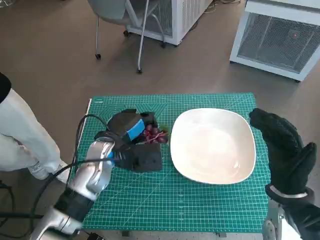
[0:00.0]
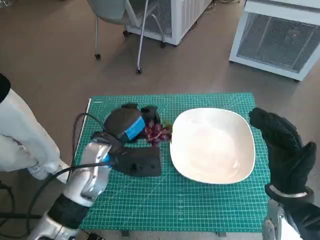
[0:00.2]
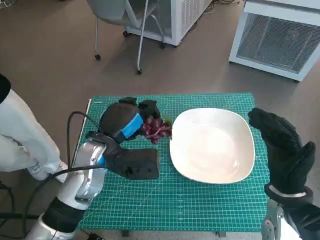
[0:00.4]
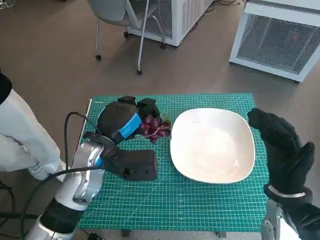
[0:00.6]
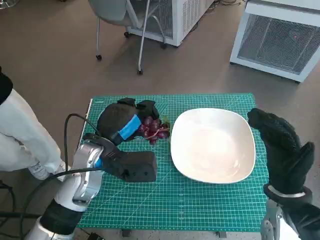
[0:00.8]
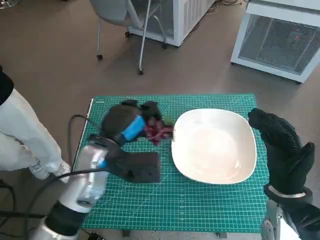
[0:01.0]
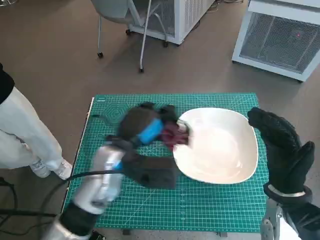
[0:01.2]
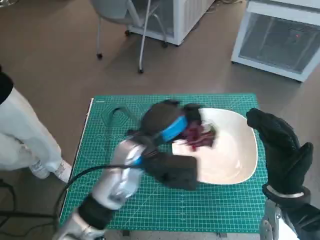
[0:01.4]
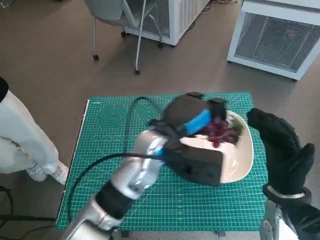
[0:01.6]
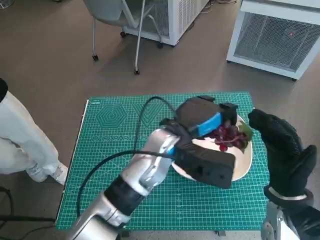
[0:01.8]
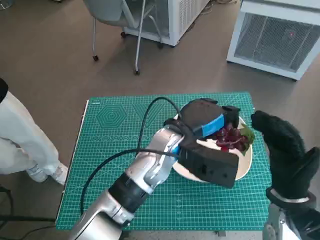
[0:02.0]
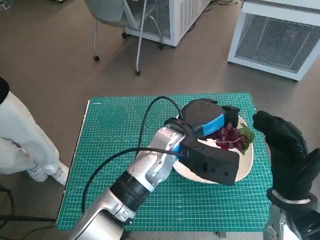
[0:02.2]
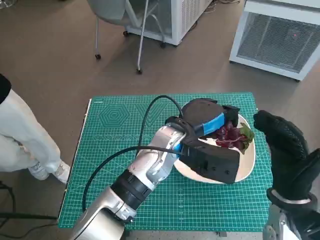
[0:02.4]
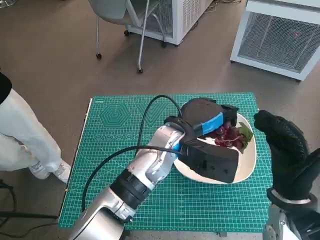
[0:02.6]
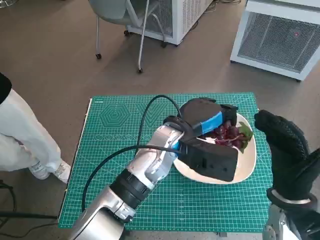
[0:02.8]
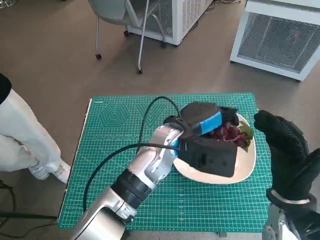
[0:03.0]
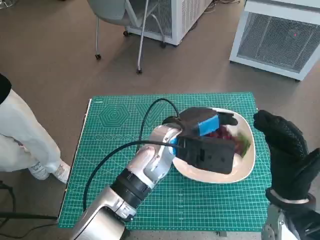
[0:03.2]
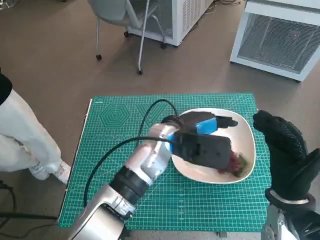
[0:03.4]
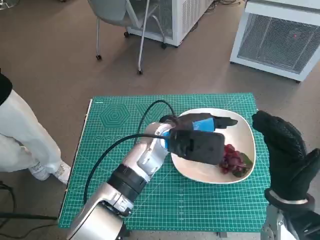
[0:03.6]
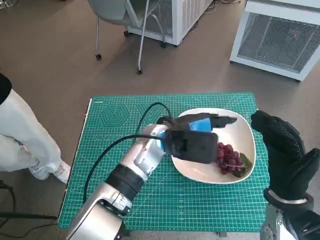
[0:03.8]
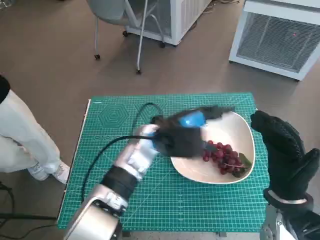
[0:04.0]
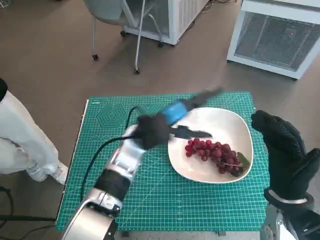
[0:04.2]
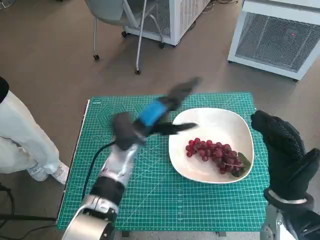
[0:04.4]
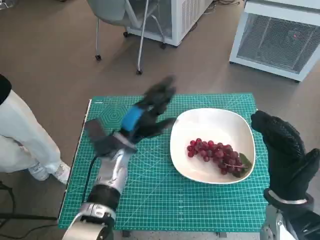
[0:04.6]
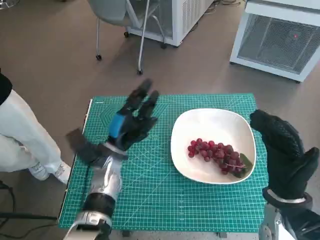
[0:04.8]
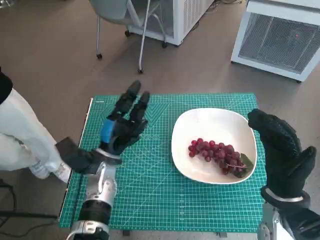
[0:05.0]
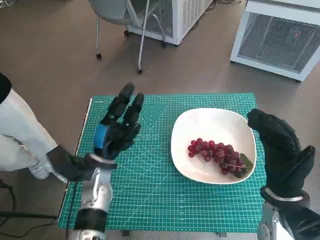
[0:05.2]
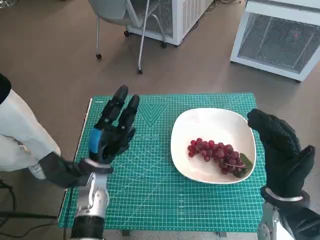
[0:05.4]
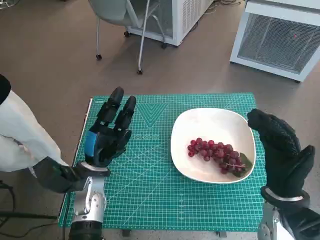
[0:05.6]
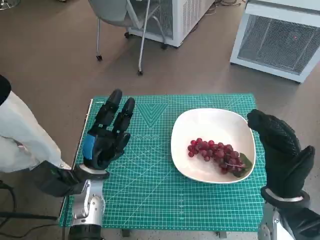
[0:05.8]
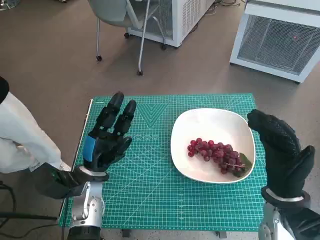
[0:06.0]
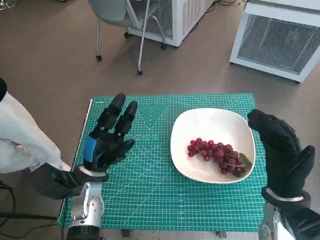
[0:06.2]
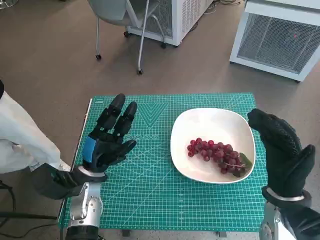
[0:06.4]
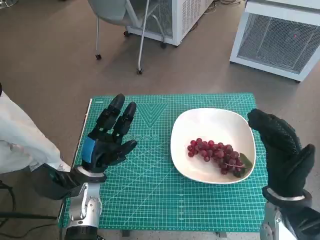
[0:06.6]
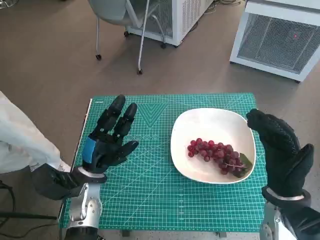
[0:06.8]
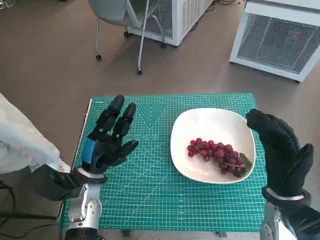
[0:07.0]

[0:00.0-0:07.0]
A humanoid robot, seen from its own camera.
Task of the whole recording: Pick up the grapes and put them on the plate.
Step, 0:00.0 to 0:03.4: Place the grapes in the plate with left hand.
0:00.0 to 0:01.4: The left hand is displaced to the right by approximately 5 cm.
0:01.4 to 0:02.8: The left hand shifts about 5 cm to the right.
0:02.8 to 0:04.2: The left hand is displaced to the left by some 5 cm.
0:04.2 to 0:05.6: The left hand goes roughly 15 cm to the left, downward and backward.
0:05.6 to 0:07.0: There are only small adjustments of the hands.

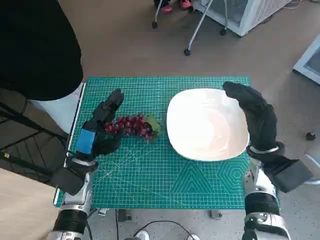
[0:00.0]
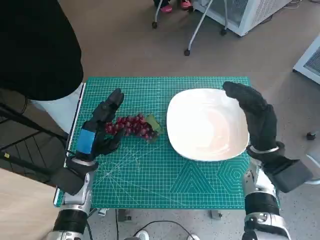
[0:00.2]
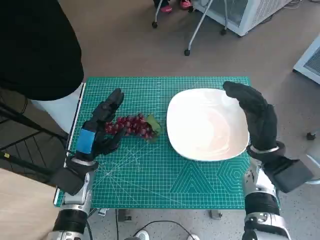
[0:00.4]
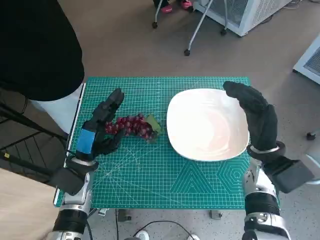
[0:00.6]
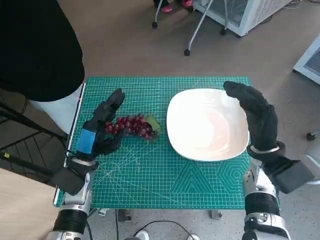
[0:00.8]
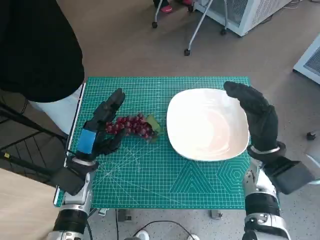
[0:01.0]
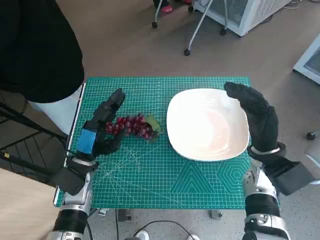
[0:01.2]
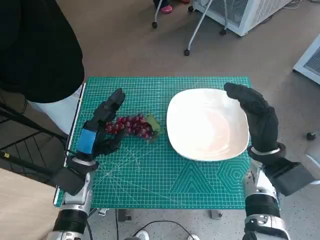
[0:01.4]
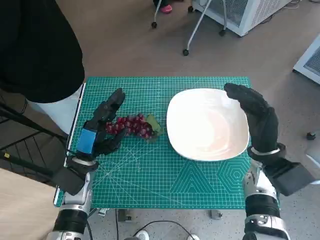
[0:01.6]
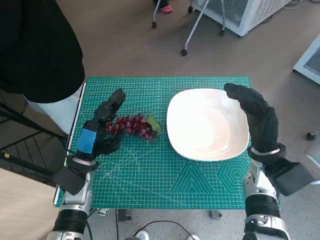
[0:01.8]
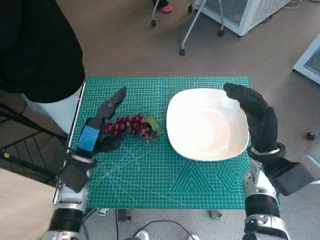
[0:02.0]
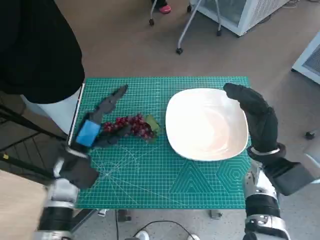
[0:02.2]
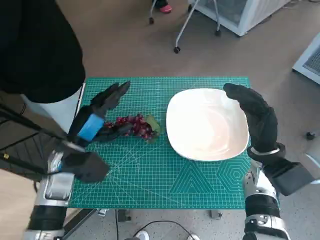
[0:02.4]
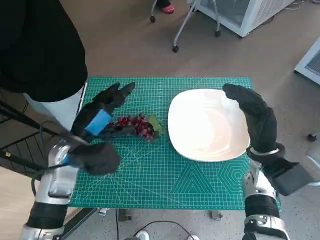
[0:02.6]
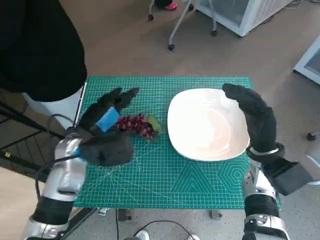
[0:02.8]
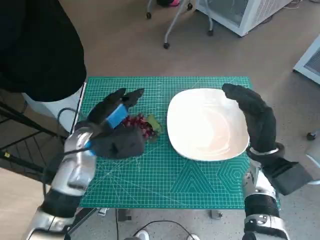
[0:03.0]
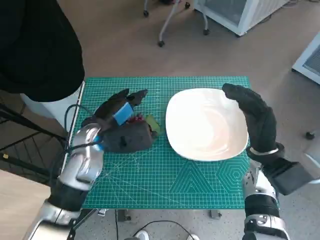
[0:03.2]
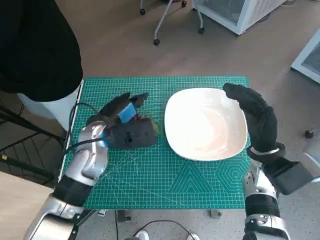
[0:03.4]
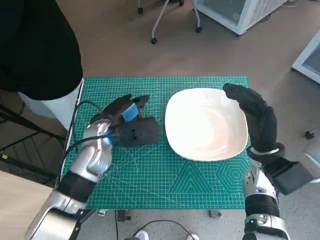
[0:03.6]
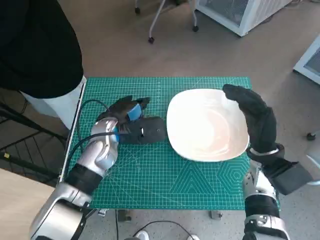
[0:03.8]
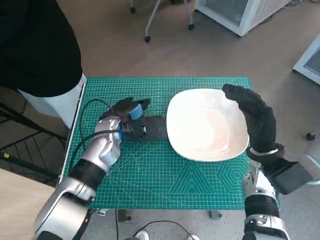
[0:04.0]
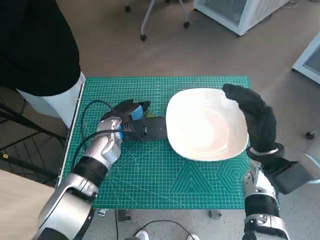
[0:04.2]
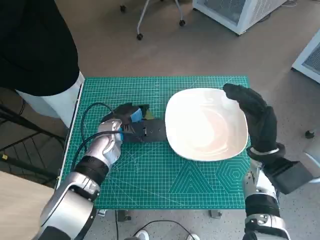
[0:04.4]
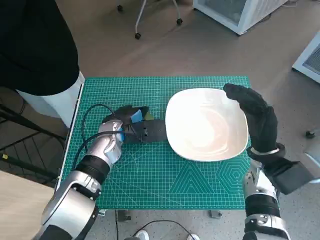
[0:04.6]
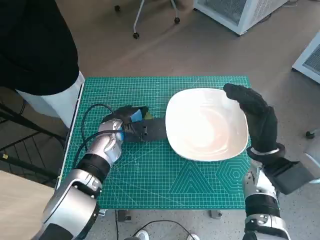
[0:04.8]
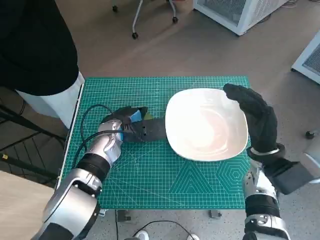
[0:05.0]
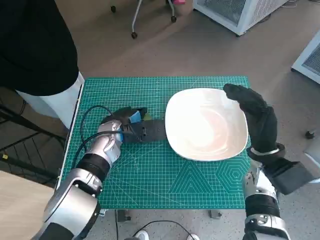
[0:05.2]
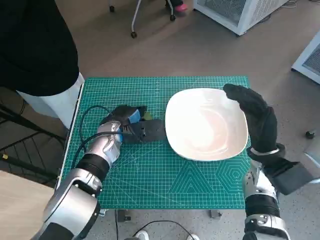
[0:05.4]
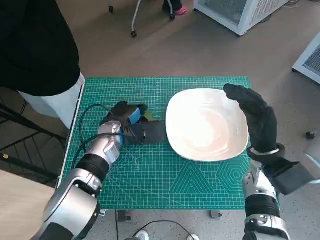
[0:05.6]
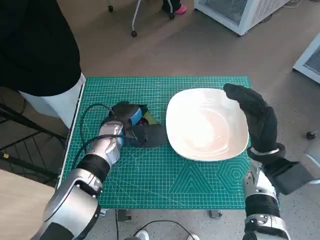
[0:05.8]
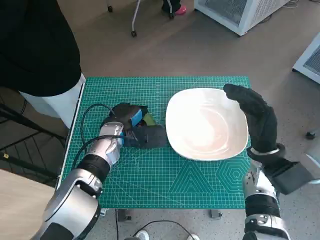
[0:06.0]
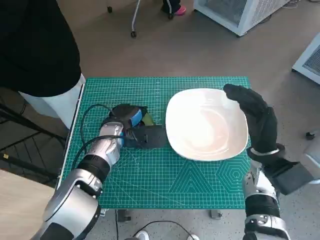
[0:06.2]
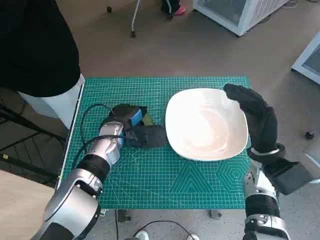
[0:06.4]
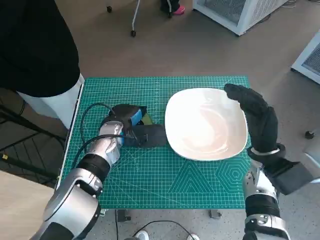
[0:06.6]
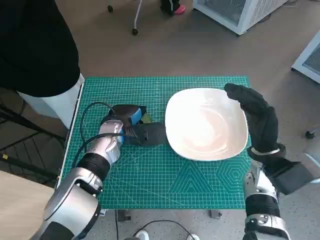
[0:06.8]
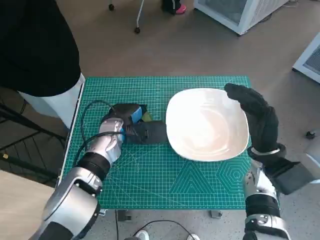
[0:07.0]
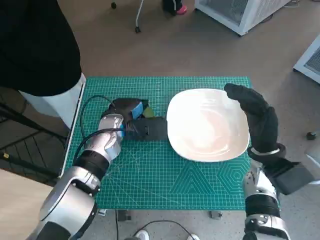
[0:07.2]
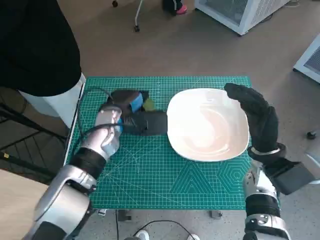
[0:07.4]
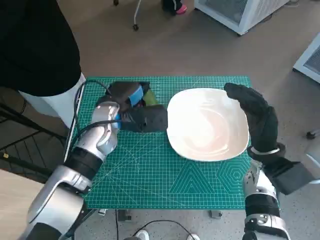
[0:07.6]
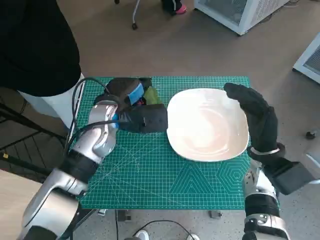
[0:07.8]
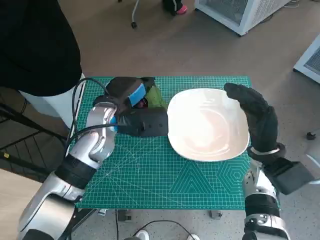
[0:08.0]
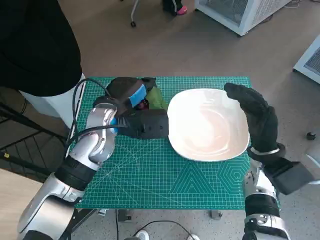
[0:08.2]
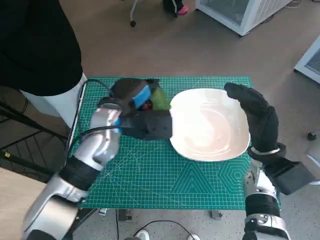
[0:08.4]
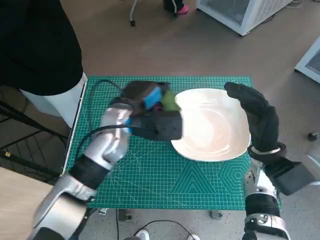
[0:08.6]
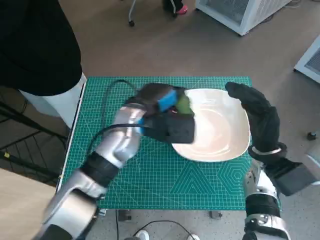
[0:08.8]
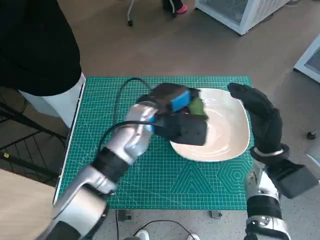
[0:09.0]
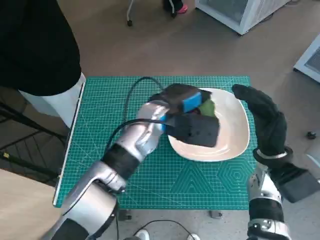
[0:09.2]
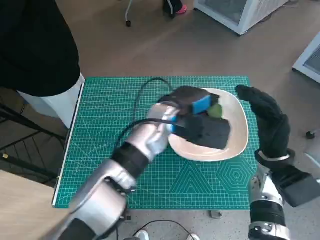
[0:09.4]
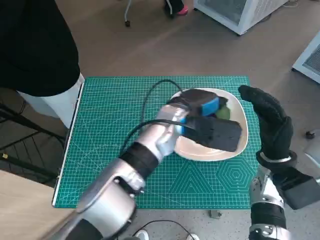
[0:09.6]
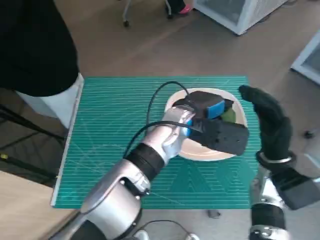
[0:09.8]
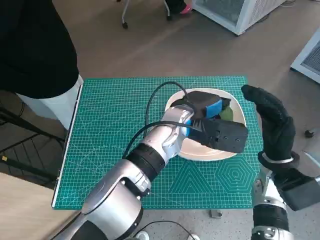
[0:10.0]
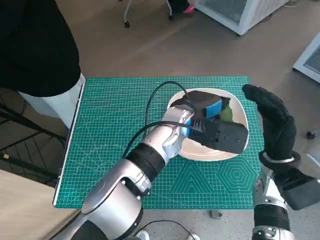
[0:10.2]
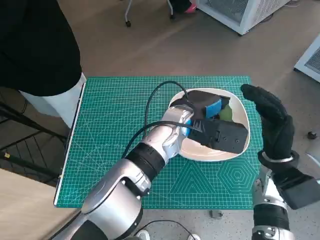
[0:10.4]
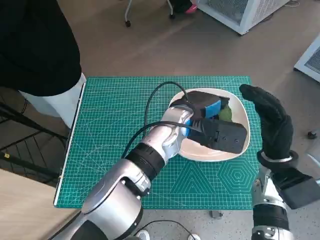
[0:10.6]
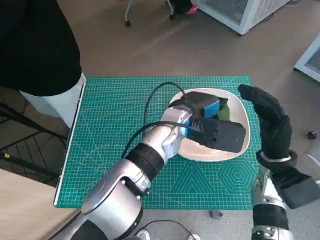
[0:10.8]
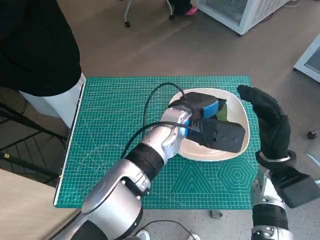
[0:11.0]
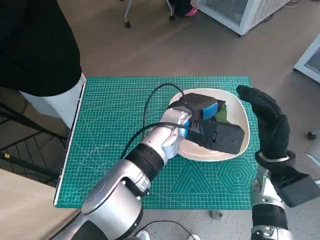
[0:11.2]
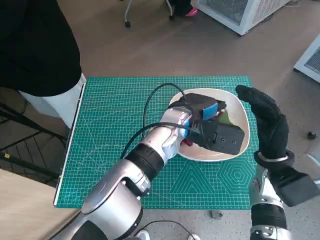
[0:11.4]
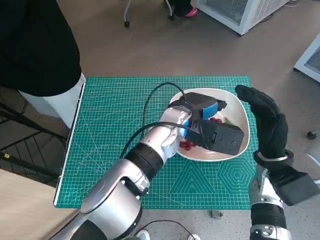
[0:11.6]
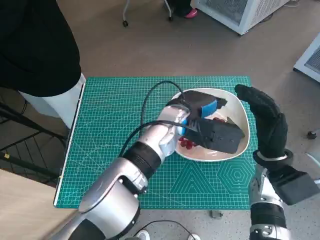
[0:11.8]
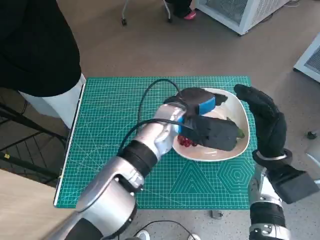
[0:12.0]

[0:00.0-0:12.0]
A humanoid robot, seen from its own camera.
Task of the whole recording: Pick up the grapes and put them on the plate.
Step, 0:00.0 to 0:06.4: Grasp the grapes with left hand.
Step, 0:06.6 to 0:12.0: Place the grapes in the plate with left hand.
0:01.6 to 0:03.0: The left hand goes approximately 10 cm upward.
0:03.0 to 0:04.4: The left hand is displaced forward by some 5 cm.
0:04.4 to 0:06.0: The hands make only small movements.
0:06.0 to 0:07.6: The left hand goes some 5 cm upward.
0:07.6 to 0:09.0: The left hand shifts approximately 5 cm to the right.
0:09.0 to 0:10.4: The left hand is displaced to the right by approximately 10 cm.
0:10.4 to 0:12.0: The hands stay close to where they were, moving slightly.

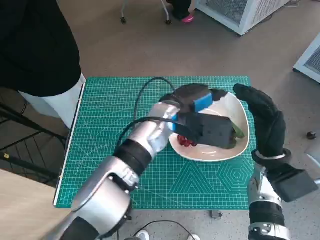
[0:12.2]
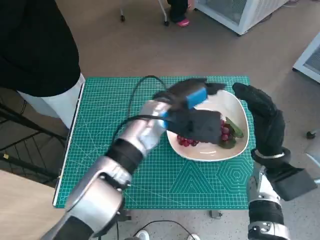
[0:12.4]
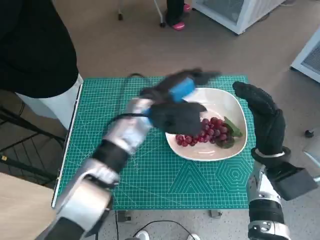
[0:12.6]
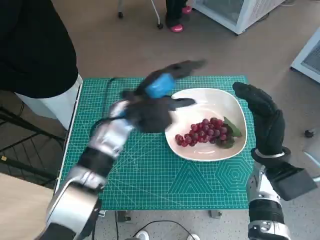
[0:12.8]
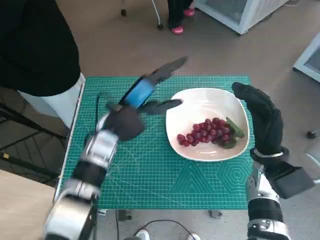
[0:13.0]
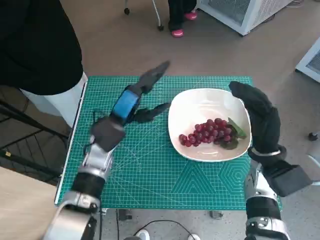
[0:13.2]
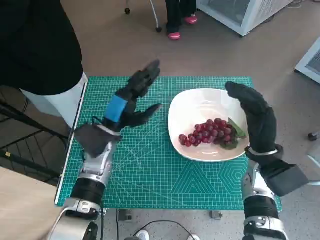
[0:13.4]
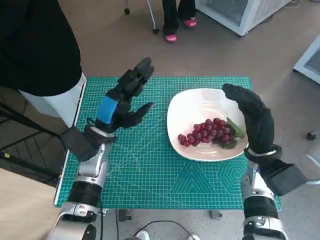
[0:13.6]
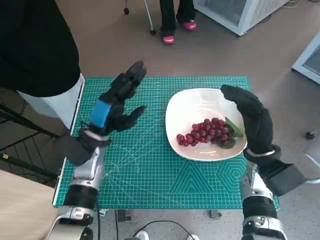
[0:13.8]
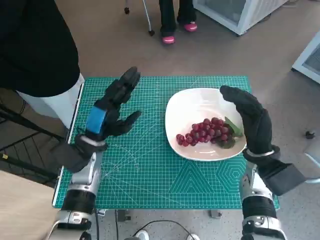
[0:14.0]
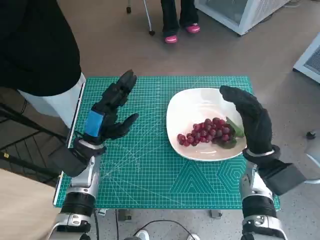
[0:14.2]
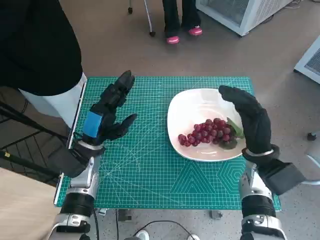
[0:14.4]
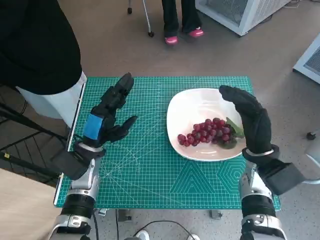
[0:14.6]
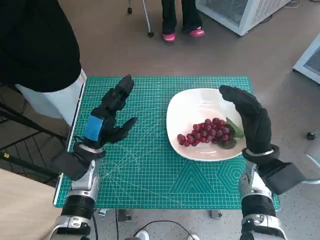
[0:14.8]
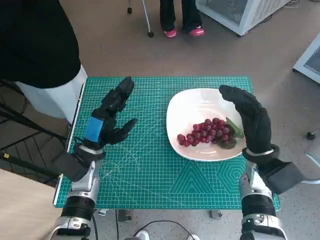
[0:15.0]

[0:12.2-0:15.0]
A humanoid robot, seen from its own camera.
Task of the whole recording: Pick up the grapes and put them on the plate.
0:12.2 to 0:13.6: The left hand heads to the left, covering about 15 cm.
0:13.6 to 0:15.0: The left hand changes place by about 5 cm.
